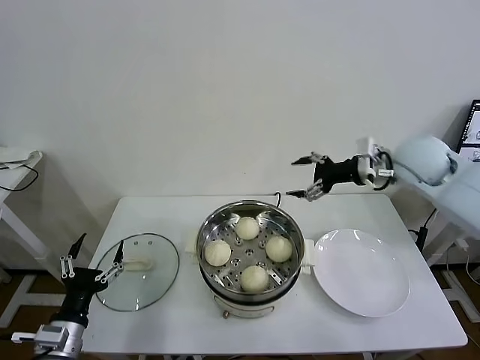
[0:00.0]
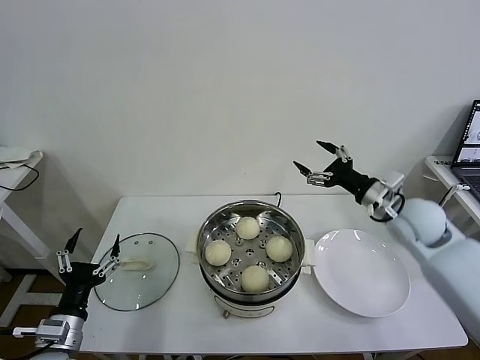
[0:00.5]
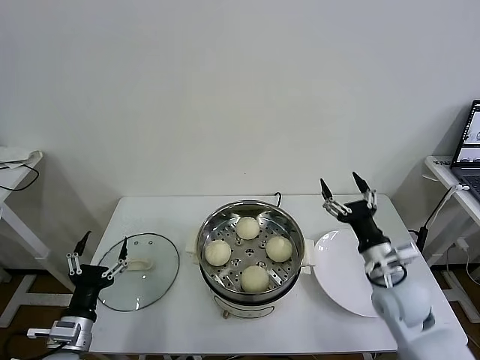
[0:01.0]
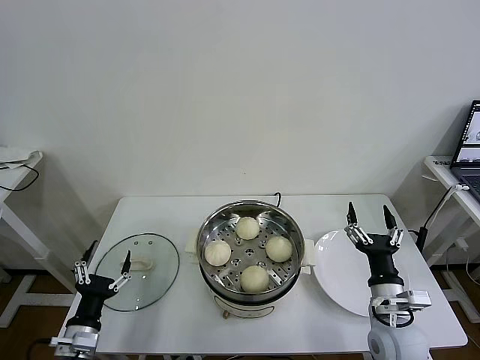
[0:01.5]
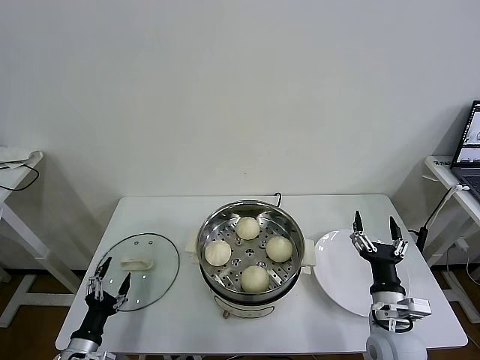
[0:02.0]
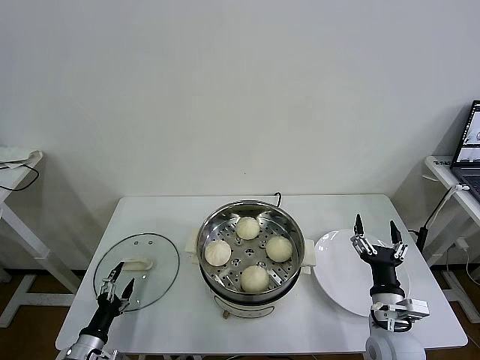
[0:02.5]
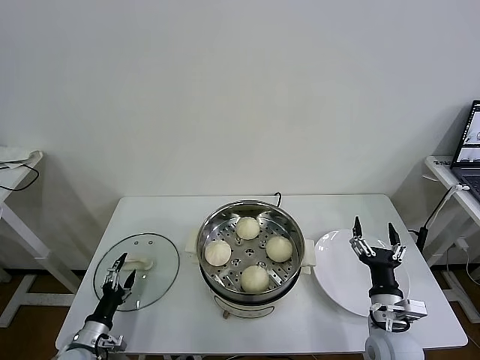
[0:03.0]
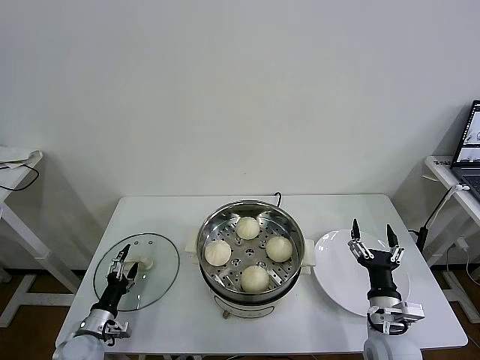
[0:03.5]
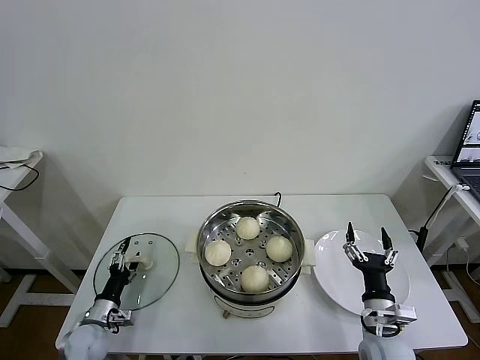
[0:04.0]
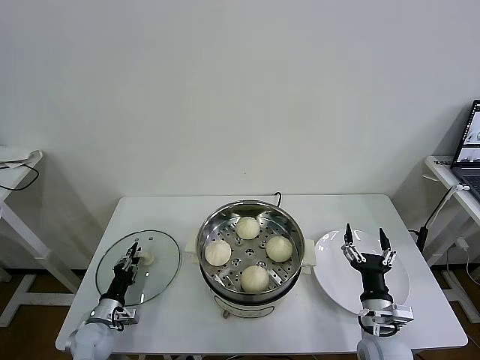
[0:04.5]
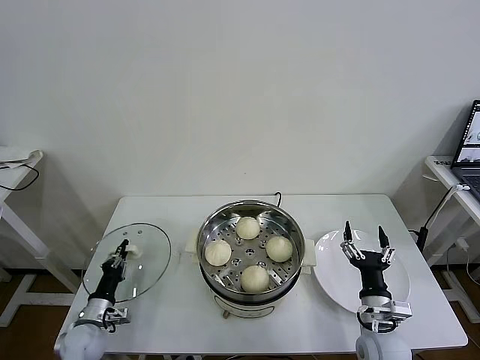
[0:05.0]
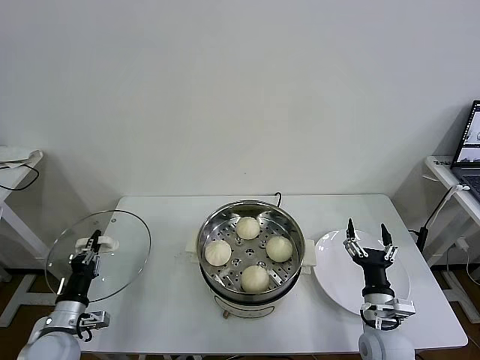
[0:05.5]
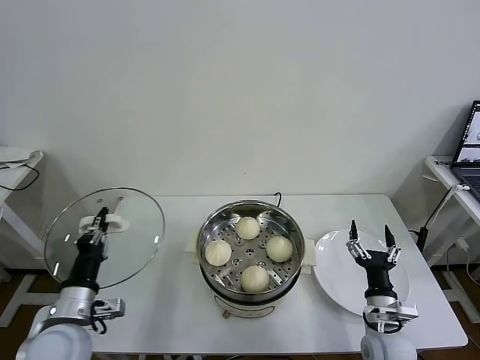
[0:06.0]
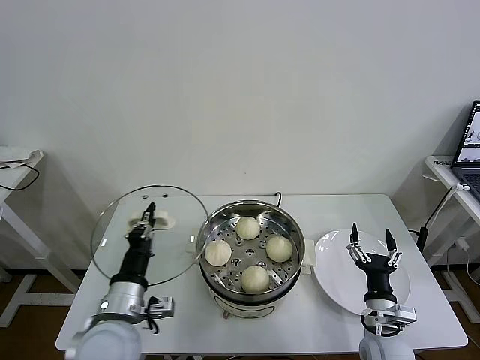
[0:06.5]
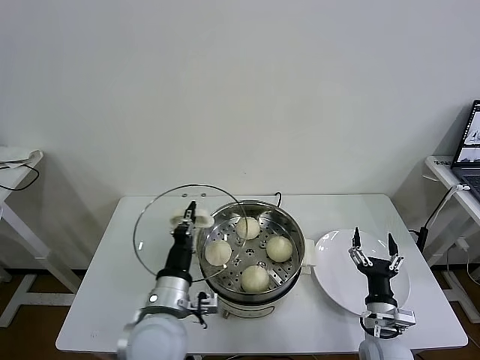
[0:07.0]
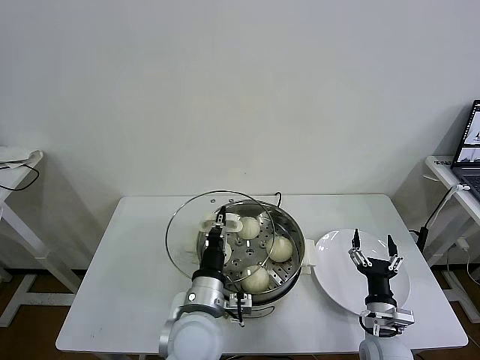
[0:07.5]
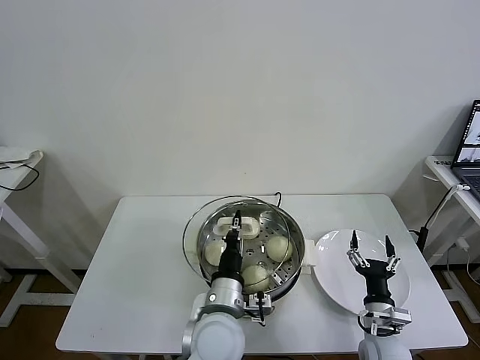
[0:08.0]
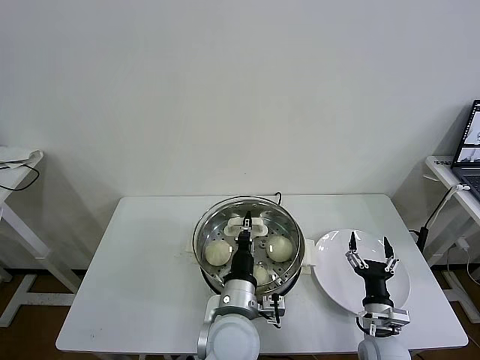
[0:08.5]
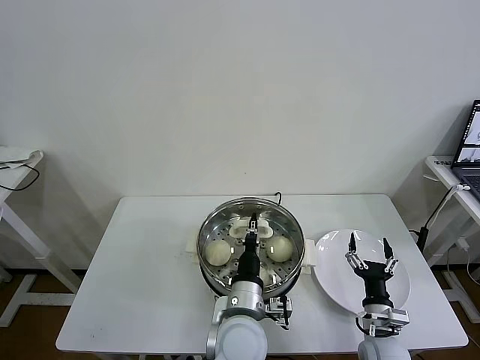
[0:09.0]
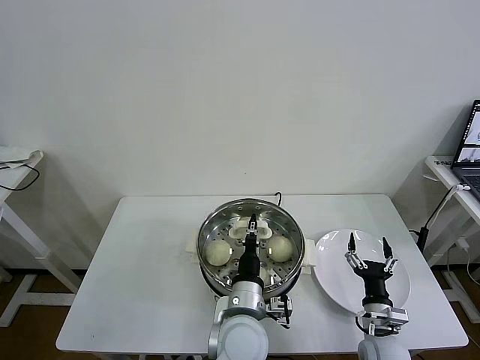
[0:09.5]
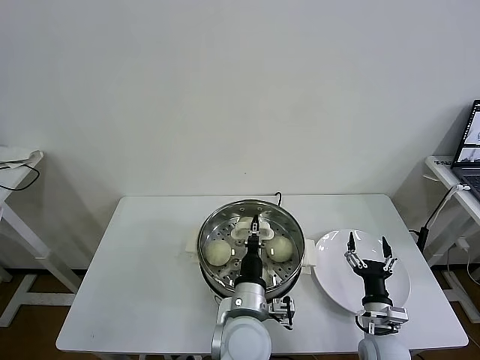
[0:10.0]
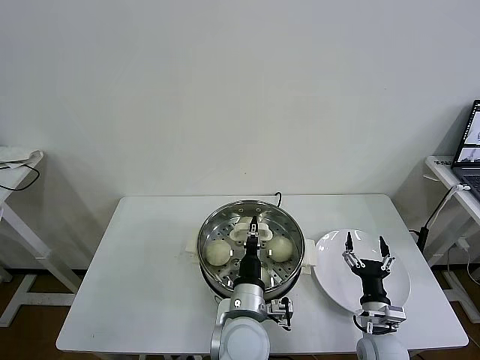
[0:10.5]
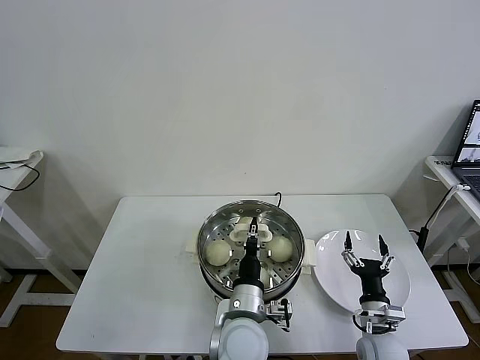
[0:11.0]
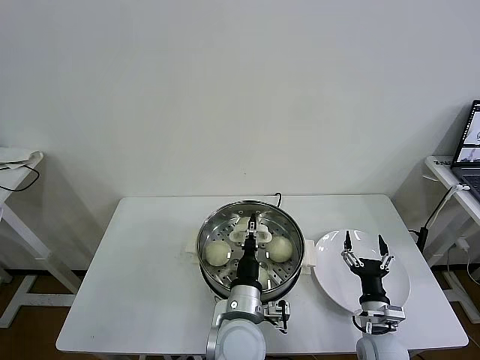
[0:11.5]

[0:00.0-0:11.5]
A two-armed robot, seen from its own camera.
Task of the whole recording: take steamed baozi put them in steamer then cover it.
Step, 0:00.0 to 0:04.5: Grasp the pot lid with left gripper.
0:00.0 to 0:02.0: The left gripper moves downward, about 10 cm. Meanwhile the right gripper is displaced downward and backward by approximately 35 cm.
0:02.0 to 0:04.0: The left gripper heads forward and downward, covering roughly 10 cm.
0:04.0 to 0:06.0: The left gripper shifts roughly 20 cm upward, and closes its fingers.
0:06.0 to 0:07.5: The left gripper heads to the right, covering some 25 cm.
0:07.5 to 0:09.5: The left gripper heads to the right, covering approximately 10 cm.
0:09.5 to 0:11.5: Both grippers stay about where they are.

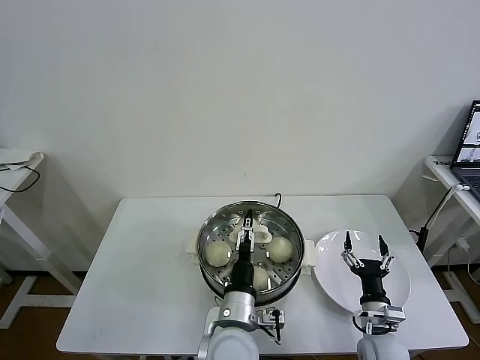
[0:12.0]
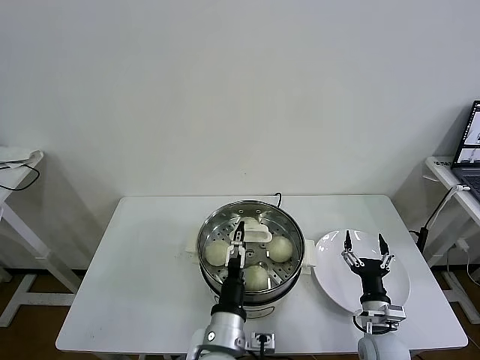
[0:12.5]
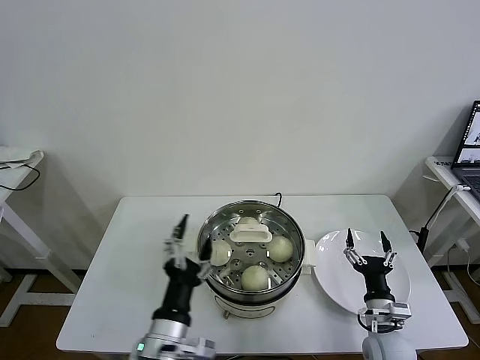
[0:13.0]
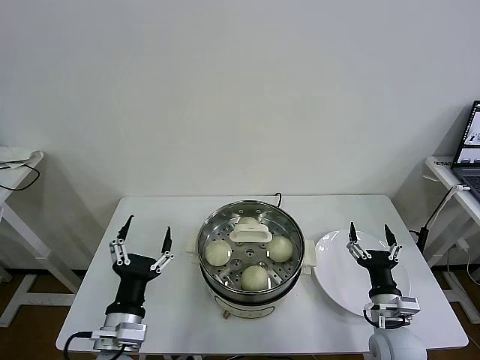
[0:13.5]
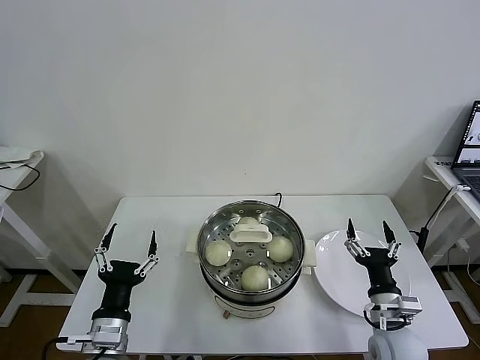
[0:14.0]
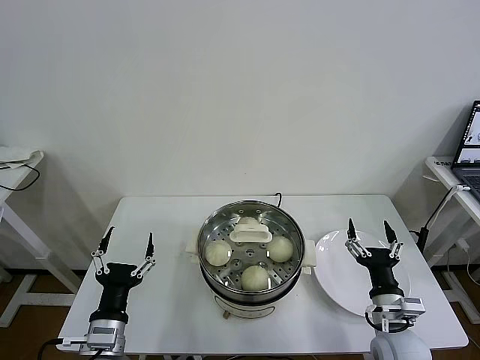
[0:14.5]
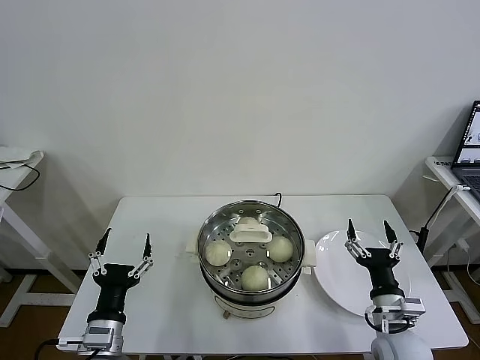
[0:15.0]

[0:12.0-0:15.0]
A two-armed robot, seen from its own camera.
Task of the whole recording: take steamed baozi put them in steamer then cover it.
0:12.0 to 0:13.5: The right gripper moves about 5 cm; the left gripper moves to the left, roughly 20 cm.
0:13.5 to 0:15.0: The left gripper changes place by approximately 5 cm.

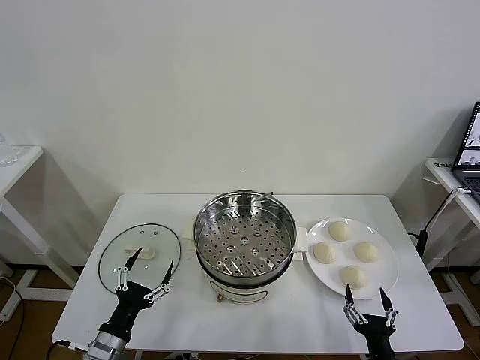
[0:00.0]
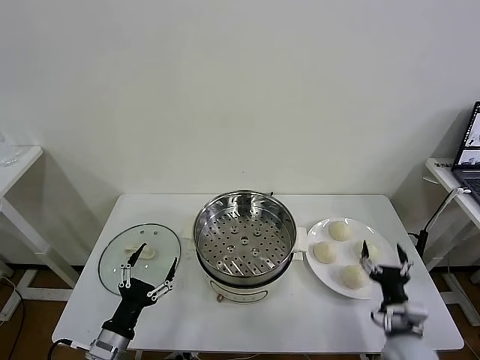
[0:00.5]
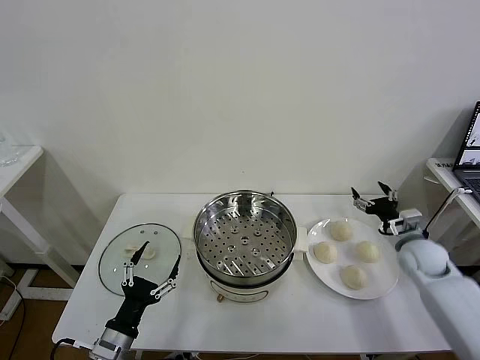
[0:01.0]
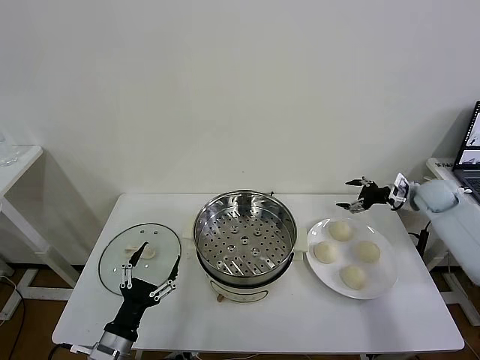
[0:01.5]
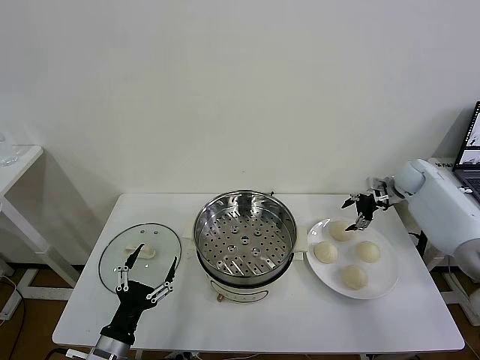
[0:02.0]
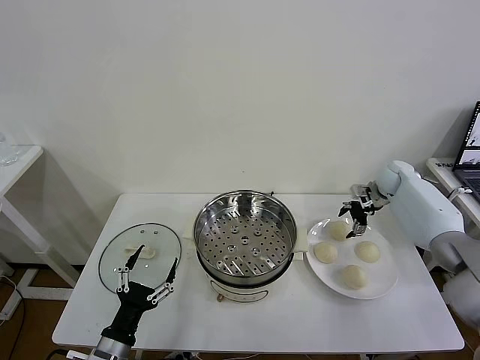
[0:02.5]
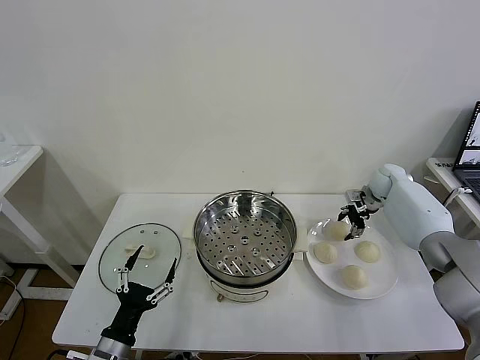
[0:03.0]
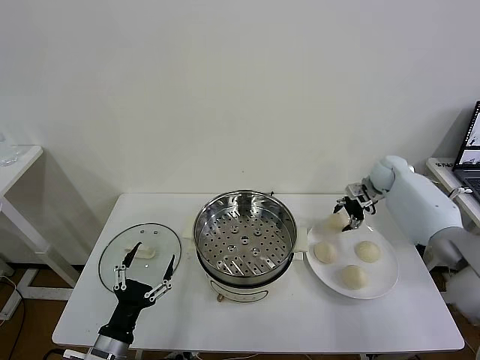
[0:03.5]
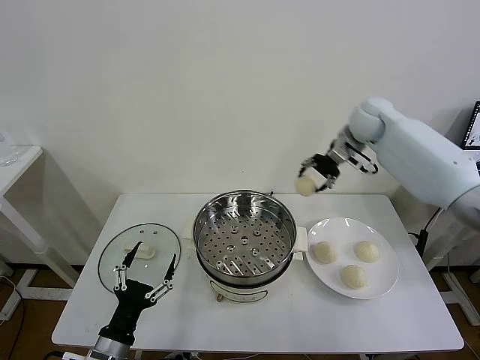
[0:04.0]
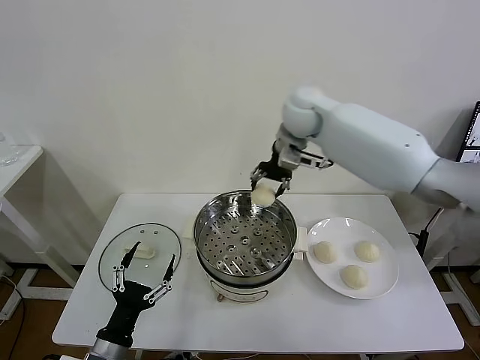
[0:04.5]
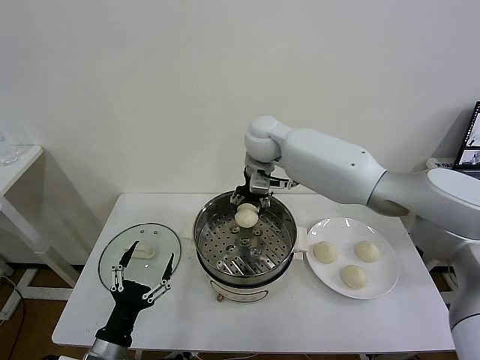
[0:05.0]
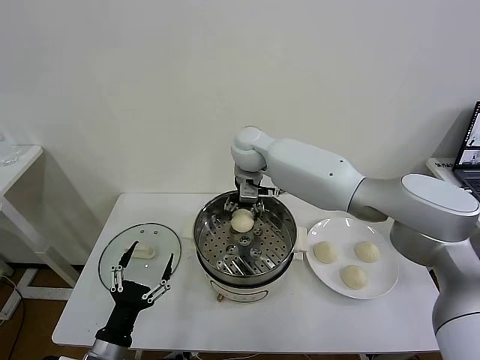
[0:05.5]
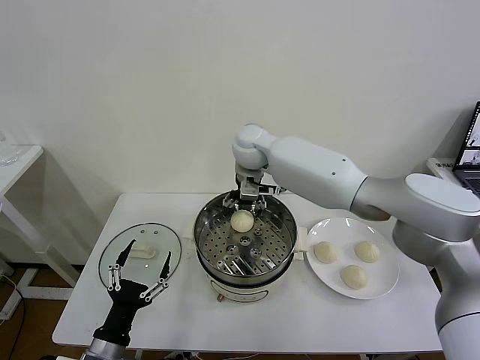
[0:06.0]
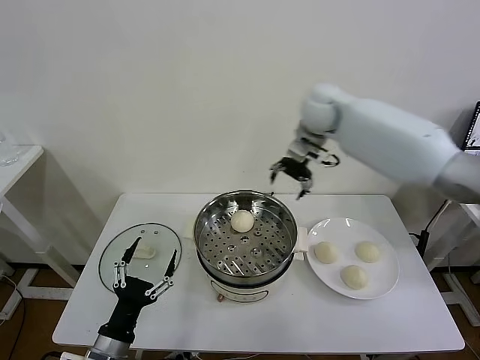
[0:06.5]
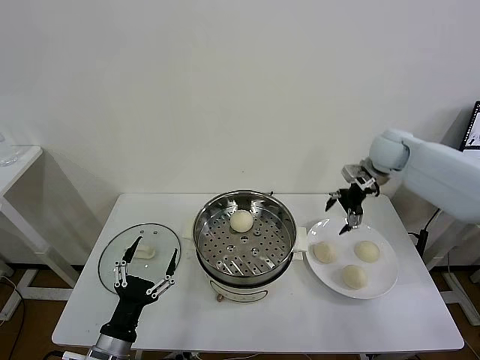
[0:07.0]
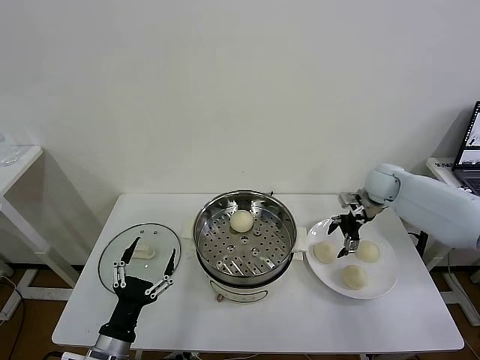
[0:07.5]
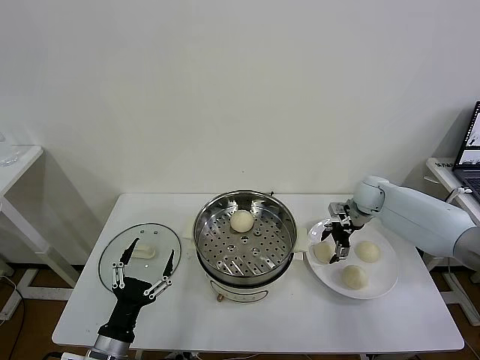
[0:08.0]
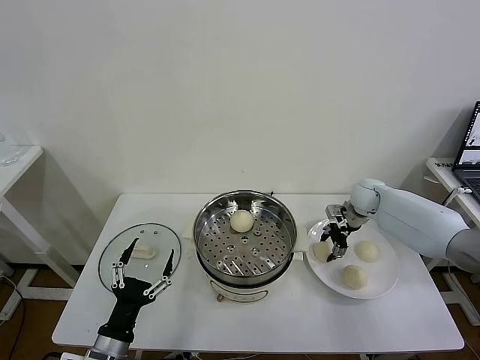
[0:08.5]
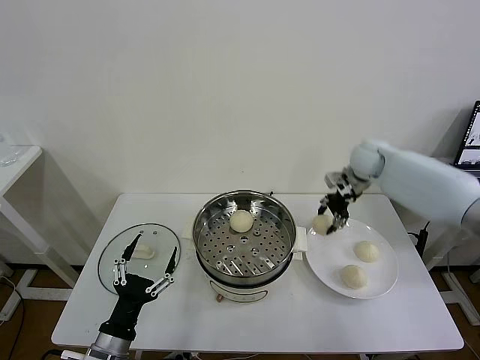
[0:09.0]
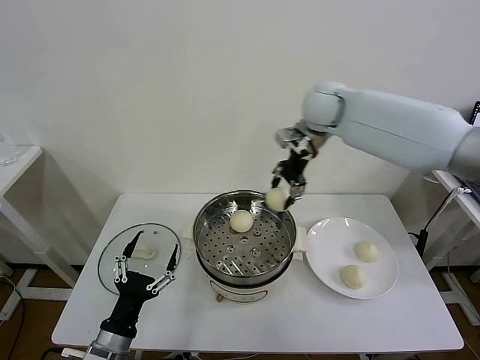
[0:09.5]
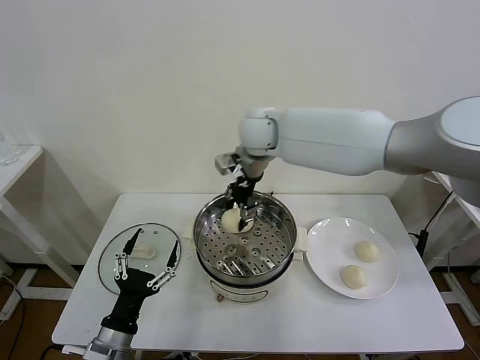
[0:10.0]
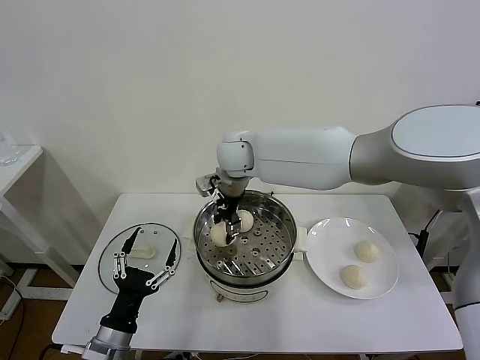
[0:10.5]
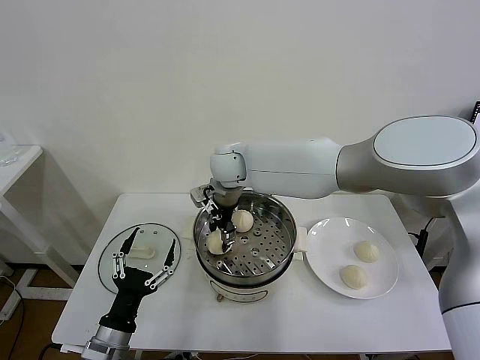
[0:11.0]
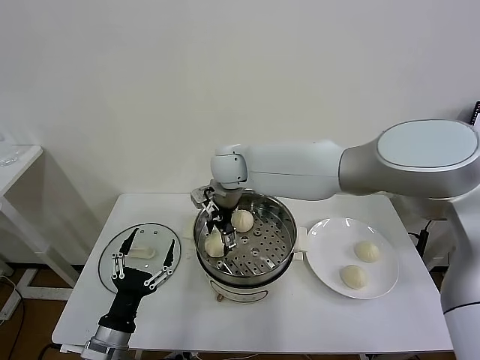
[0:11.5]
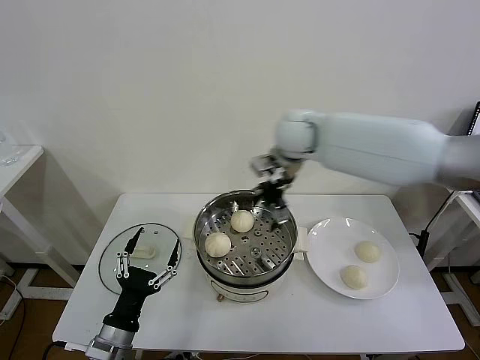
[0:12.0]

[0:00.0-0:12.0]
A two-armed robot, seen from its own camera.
Task of the whole recording: take steamed baozi put them in steamer then cover it.
Step, 0:00.0 to 0:03.0: Grasp the baozi in the plate with right gripper.
Step, 0:03.5 to 0:06.0: Place the baozi on the steamer with right gripper.
Step, 0:06.5 to 0:08.0: Grasp the baozi in the plate with right gripper.
Step, 0:08.5 to 0:11.5: Place the baozi on the steamer with right gripper.
0:02.0 to 0:04.0: The right gripper travels to the left and upward by some 25 cm, and closes.
0:04.0 to 0:06.0: The right gripper is displaced to the left by some 20 cm, and opens its fingers.
0:06.0 to 0:08.0: The right gripper is displaced to the right and downward by some 35 cm.
0:08.0 to 0:10.0: The right gripper is displaced to the left and upward by approximately 40 cm, and closes.
0:10.0 to 0:12.0: The right gripper travels to the right by approximately 10 cm, and opens up.
